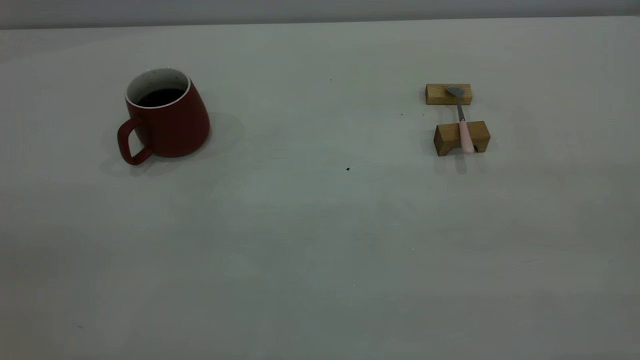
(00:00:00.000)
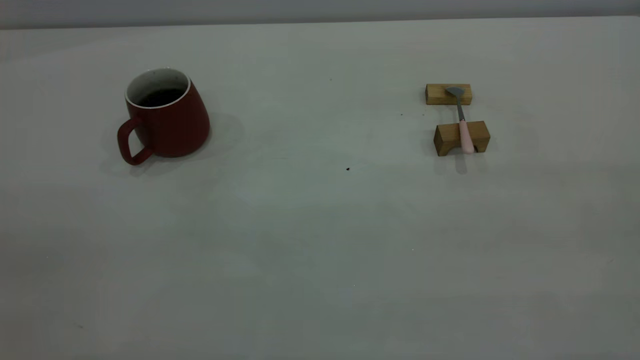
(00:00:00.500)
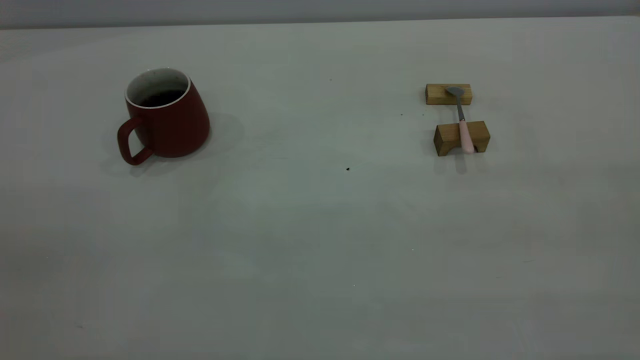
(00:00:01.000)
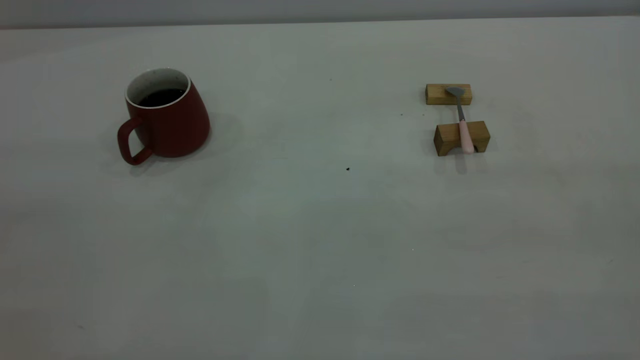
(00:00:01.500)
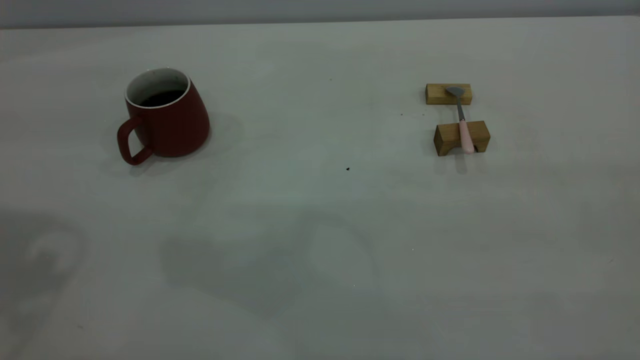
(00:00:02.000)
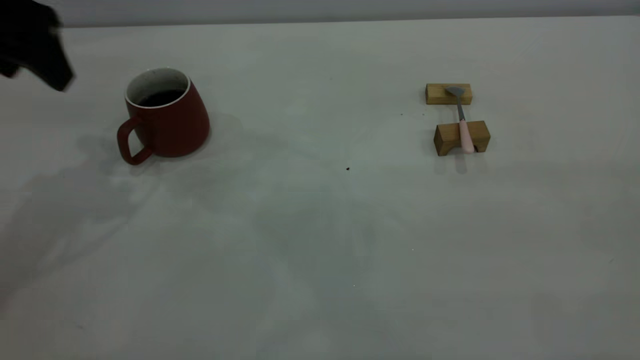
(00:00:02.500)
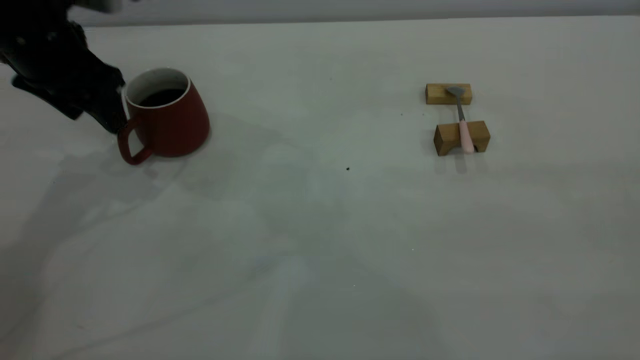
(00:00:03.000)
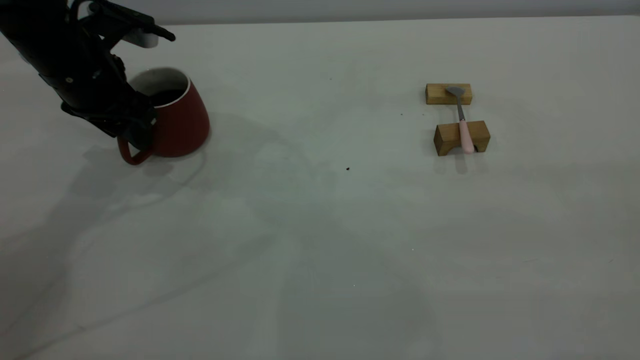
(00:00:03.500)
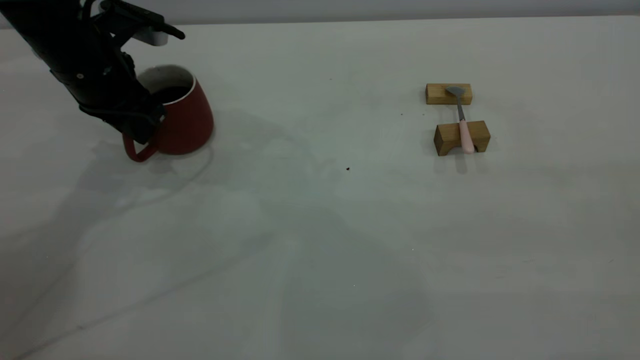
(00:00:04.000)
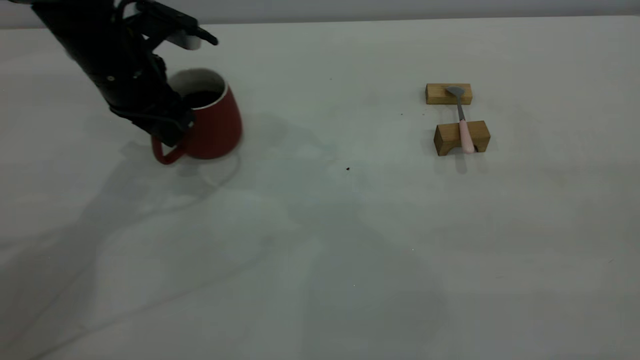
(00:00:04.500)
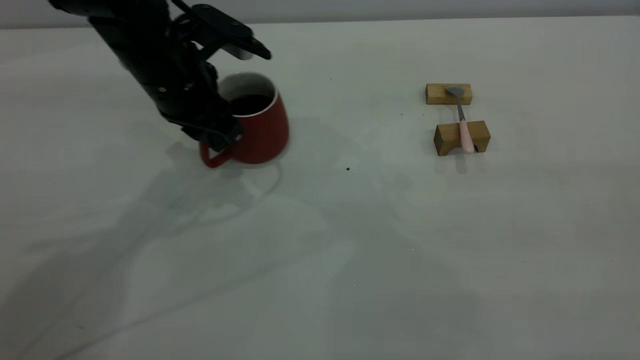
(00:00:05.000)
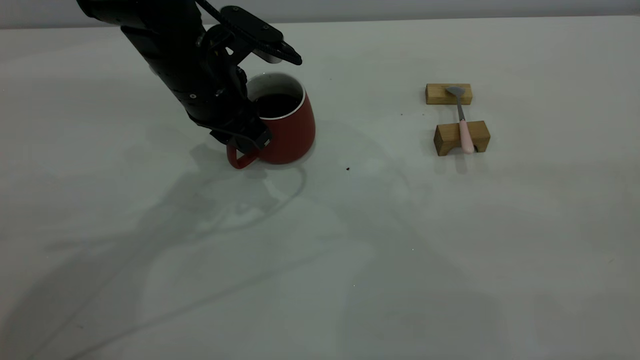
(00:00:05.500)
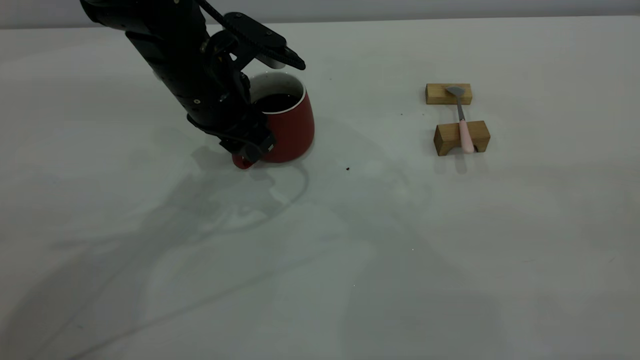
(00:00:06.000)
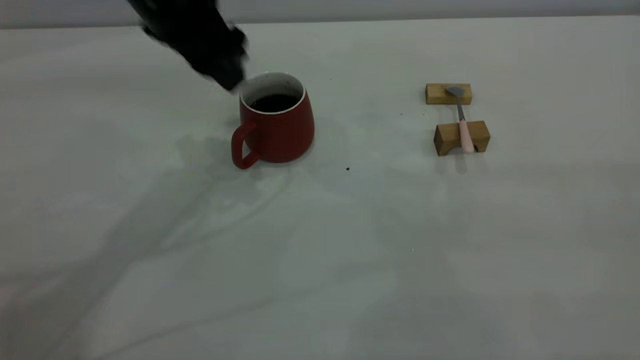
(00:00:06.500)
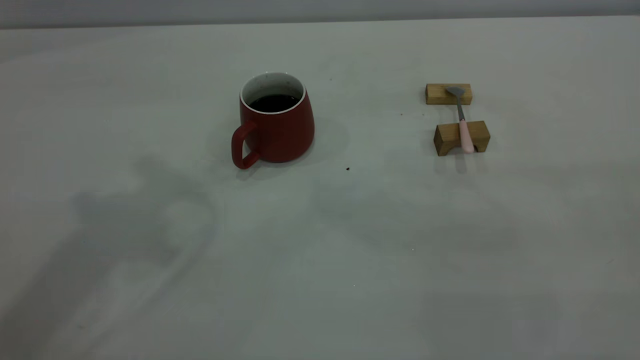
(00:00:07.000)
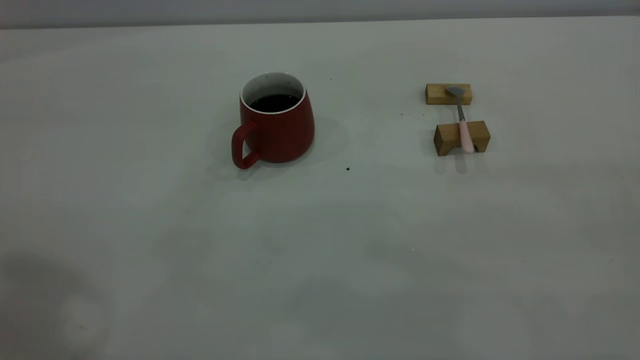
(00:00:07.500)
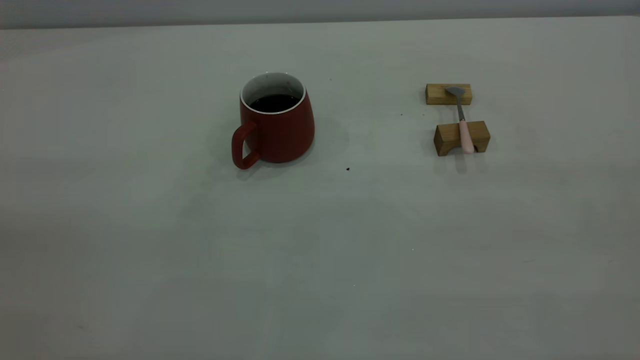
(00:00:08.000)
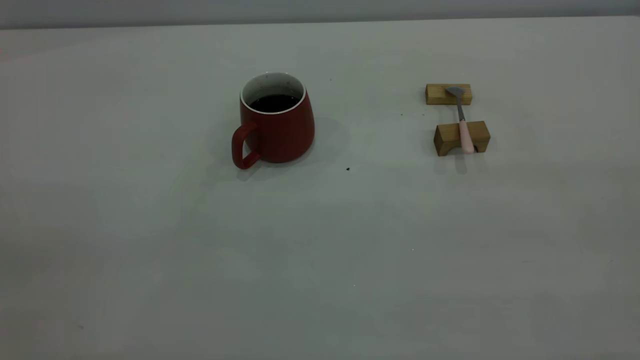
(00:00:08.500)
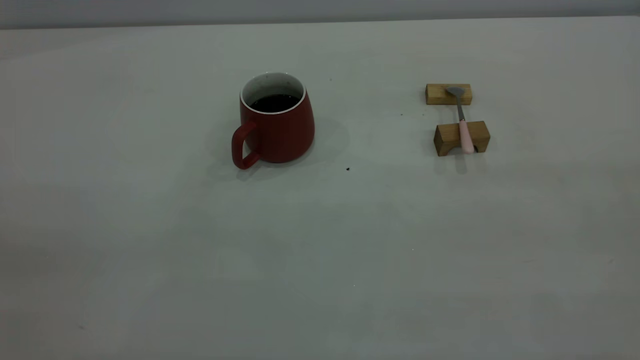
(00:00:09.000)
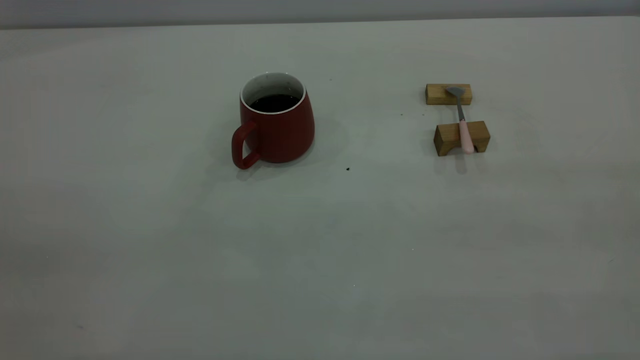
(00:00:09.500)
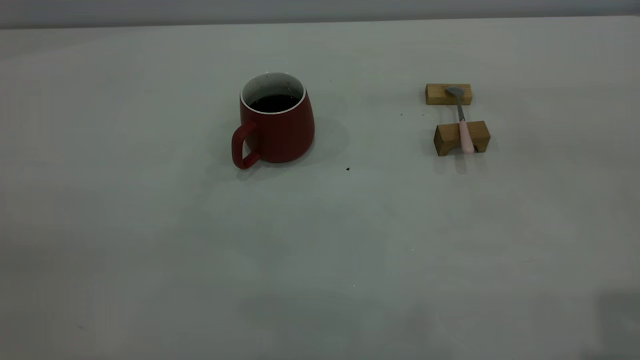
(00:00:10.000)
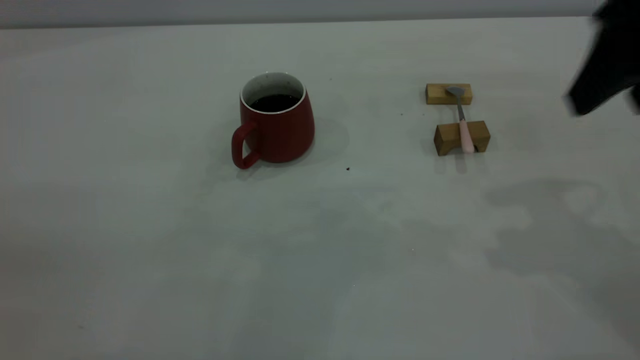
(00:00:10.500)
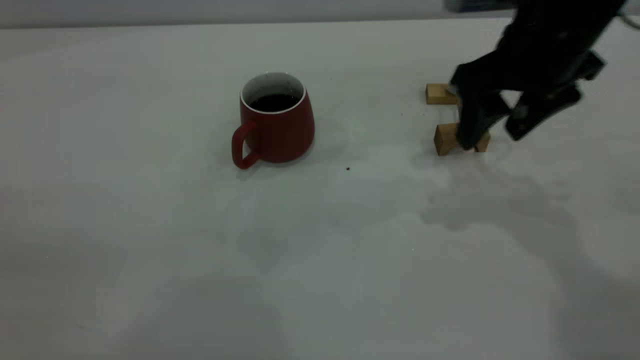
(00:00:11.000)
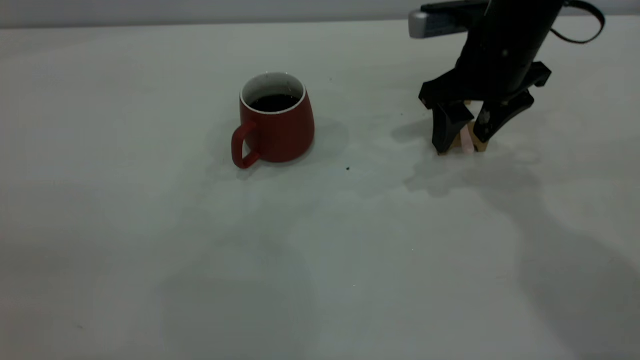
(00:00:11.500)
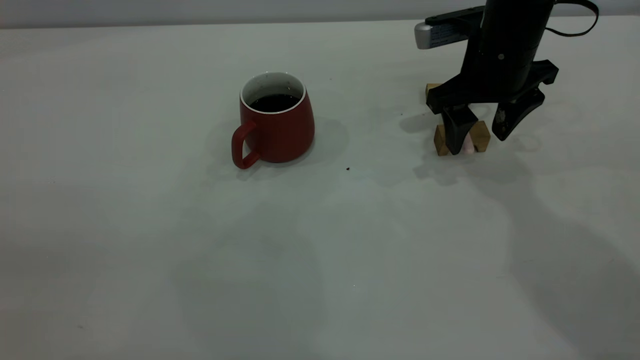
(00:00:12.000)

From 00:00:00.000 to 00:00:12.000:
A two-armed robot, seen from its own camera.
Step, from 00:00:00.000 to 00:00:06.000: Move the cup with coffee to the center of view.
From 00:00:02.000 to 00:00:04.000: The left gripper travels downward and forward by approximately 25 cm, and closes up.
From 00:00:04.000 to 00:00:06.000: The left gripper goes about 10 cm to the right, and opens.
From 00:00:06.000 to 00:00:08.000: The left gripper travels backward, upward and to the left by about 50 cm.
From 00:00:10.000 to 00:00:12.000: The right gripper moves forward, downward and to the left, approximately 40 cm.

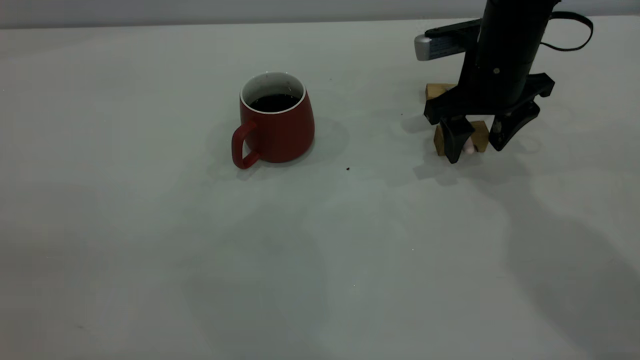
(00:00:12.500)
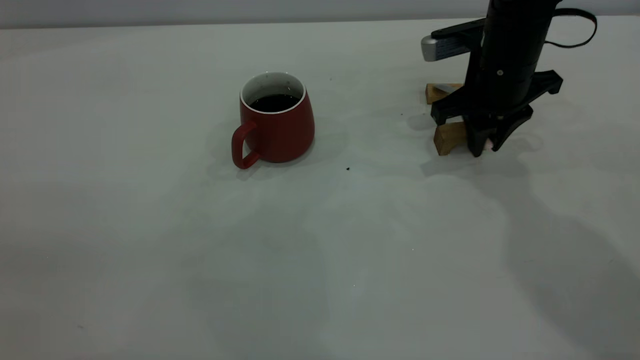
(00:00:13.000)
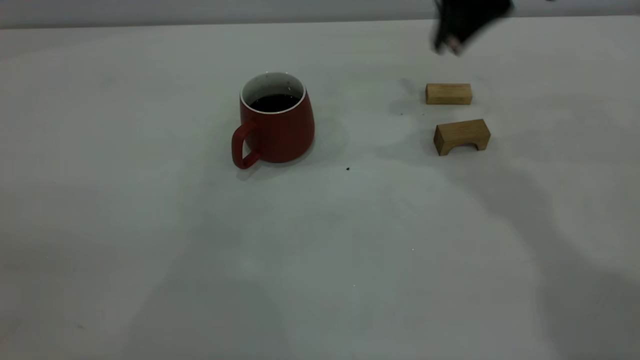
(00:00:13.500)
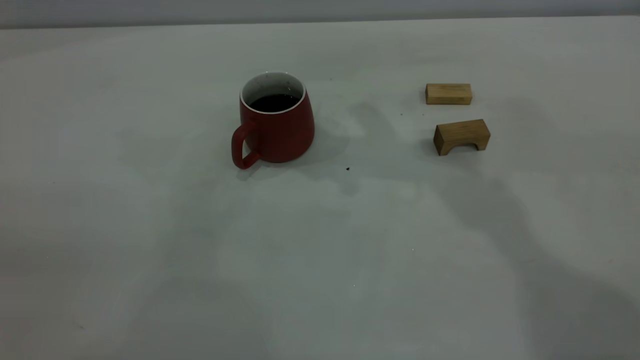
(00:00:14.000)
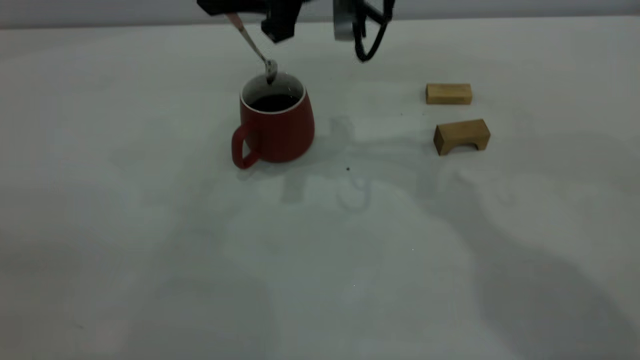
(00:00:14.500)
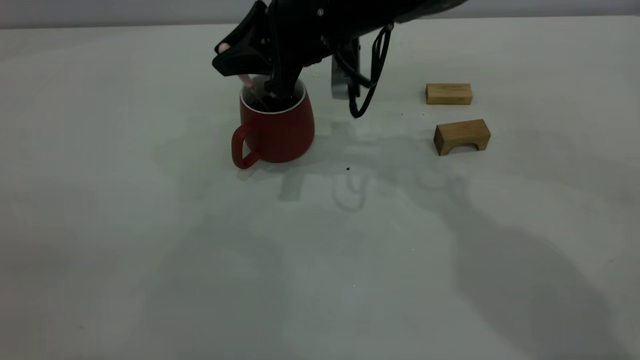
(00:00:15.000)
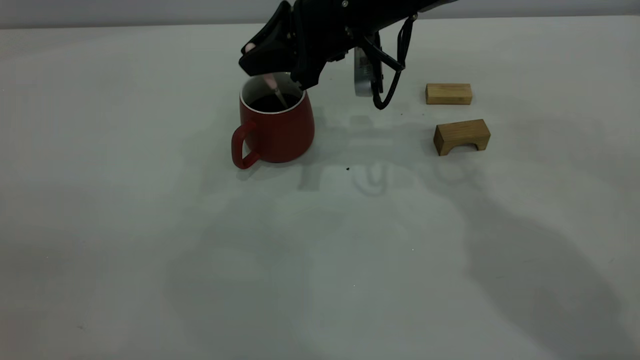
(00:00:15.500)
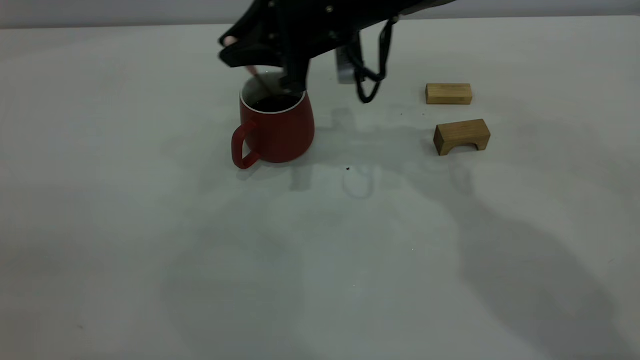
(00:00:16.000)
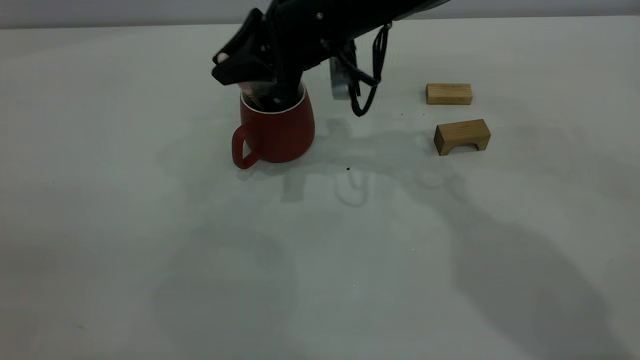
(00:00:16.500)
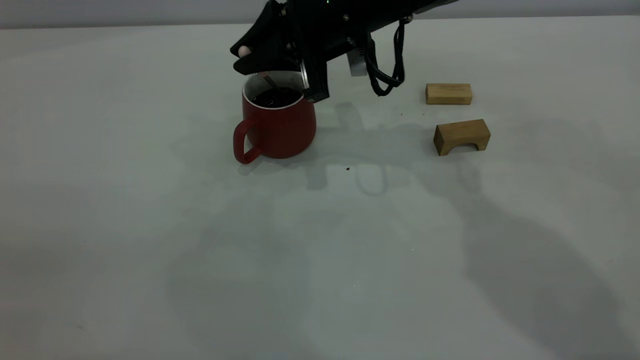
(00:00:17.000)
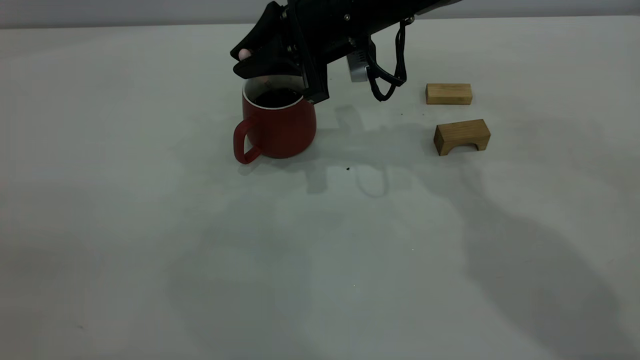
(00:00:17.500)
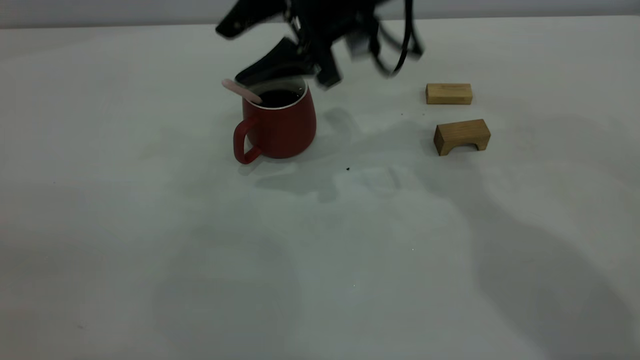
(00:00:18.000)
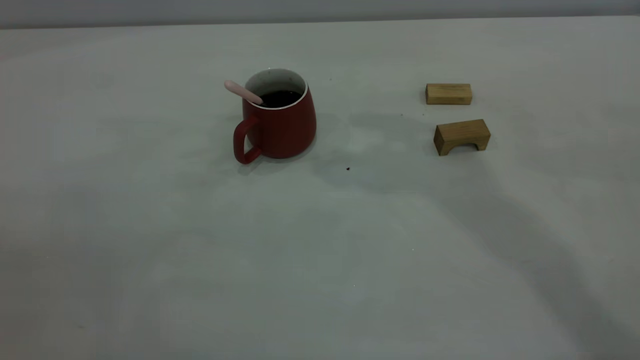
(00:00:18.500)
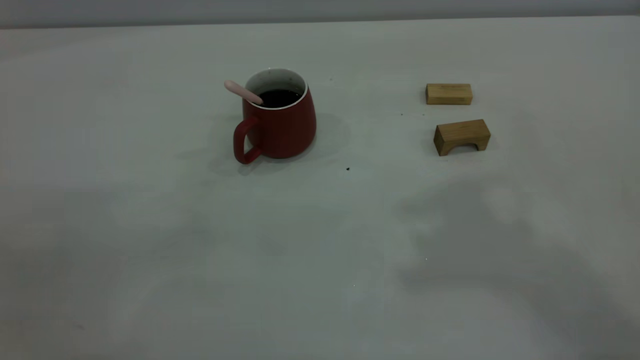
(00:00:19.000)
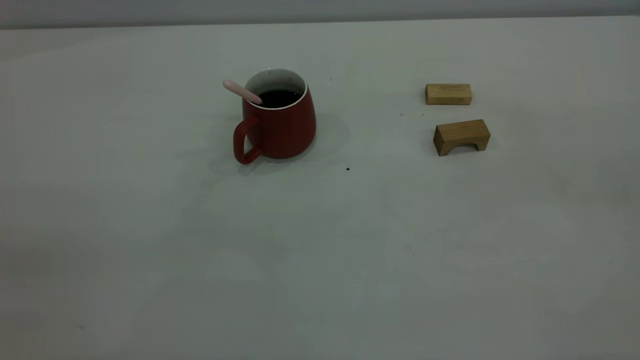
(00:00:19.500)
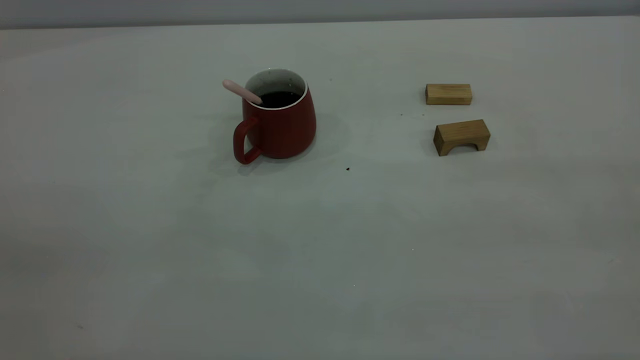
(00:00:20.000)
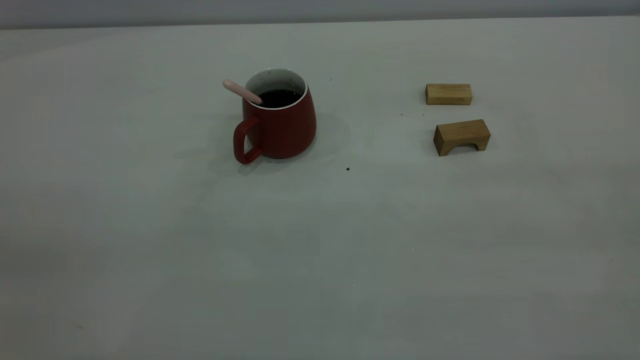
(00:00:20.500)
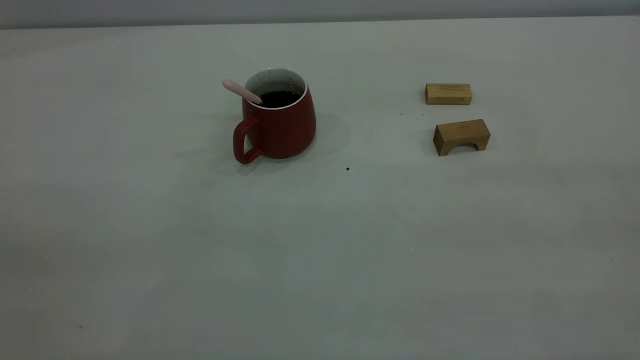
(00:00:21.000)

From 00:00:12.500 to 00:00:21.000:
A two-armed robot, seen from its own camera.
Step, from 00:00:13.500 to 00:00:18.000: Stir the coffee in the cup.
From 00:00:12.500 to 00:00:14.500: The right gripper travels to the left and upward by approximately 20 cm, and closes its fingers.
From 00:00:14.500 to 00:00:16.500: The right gripper moves downward, roughly 5 cm.
From 00:00:16.500 to 00:00:19.000: The right gripper is displaced upward, backward and to the right by some 40 cm, and opens, then closes once more.
